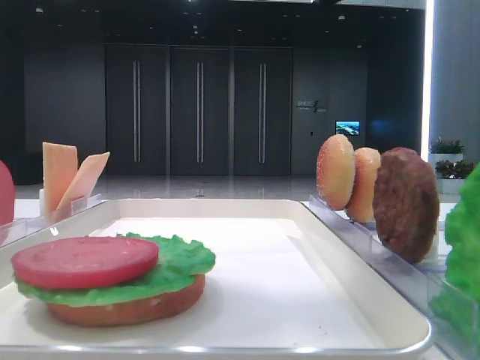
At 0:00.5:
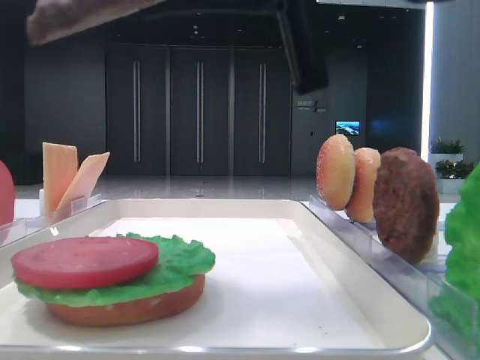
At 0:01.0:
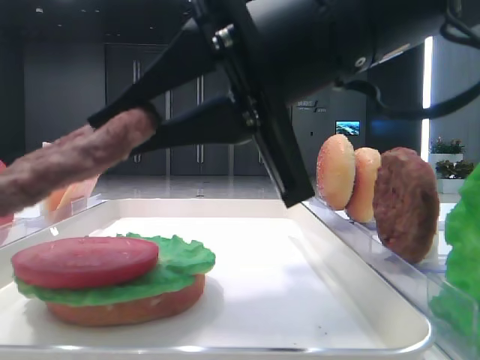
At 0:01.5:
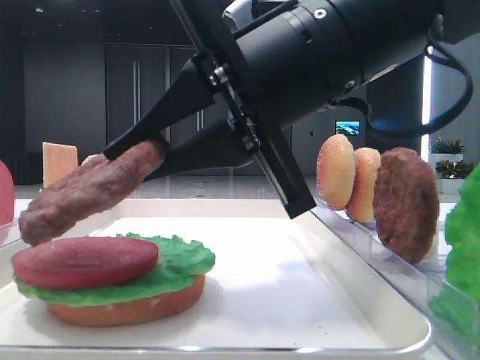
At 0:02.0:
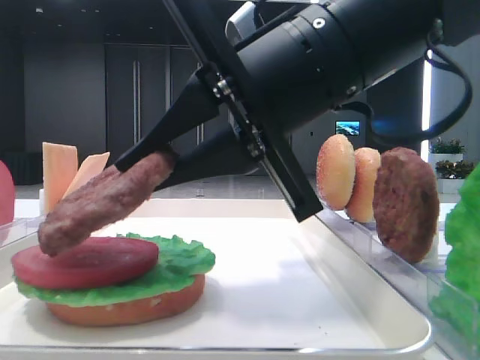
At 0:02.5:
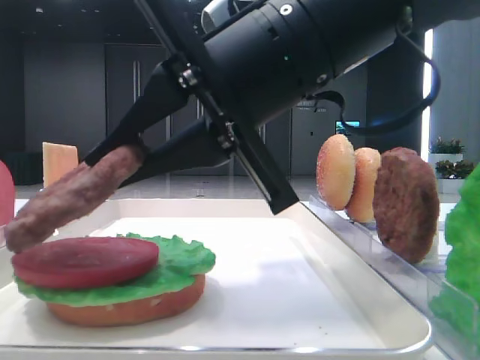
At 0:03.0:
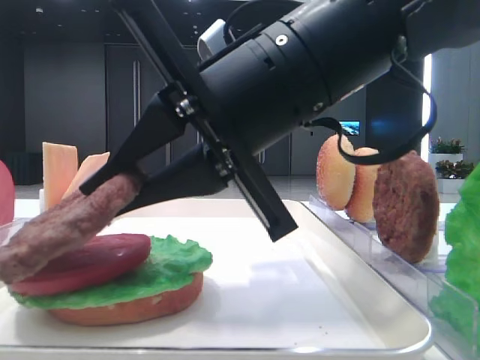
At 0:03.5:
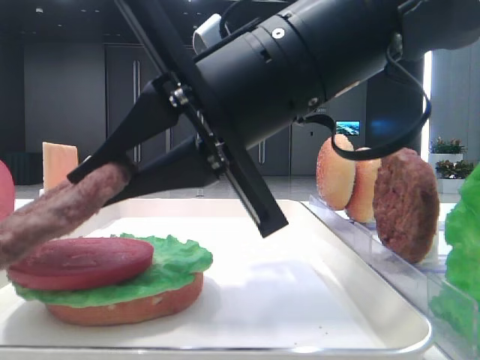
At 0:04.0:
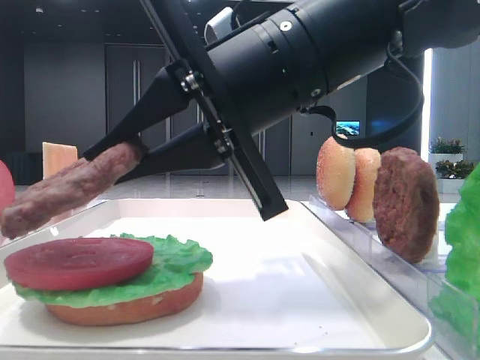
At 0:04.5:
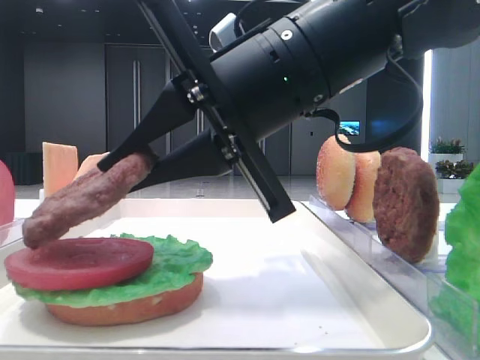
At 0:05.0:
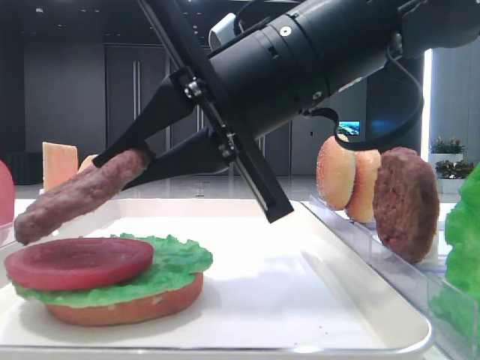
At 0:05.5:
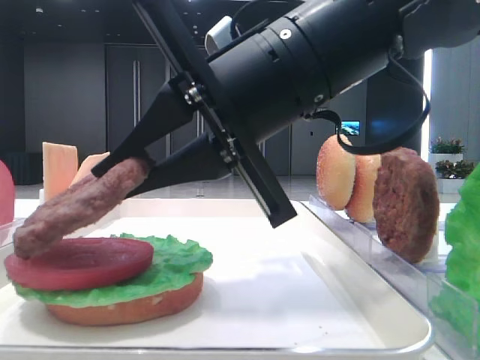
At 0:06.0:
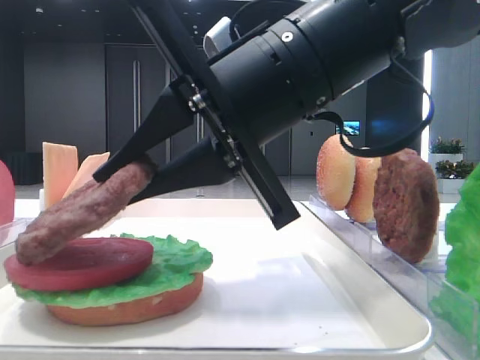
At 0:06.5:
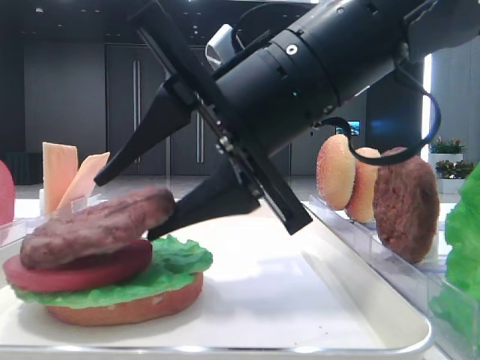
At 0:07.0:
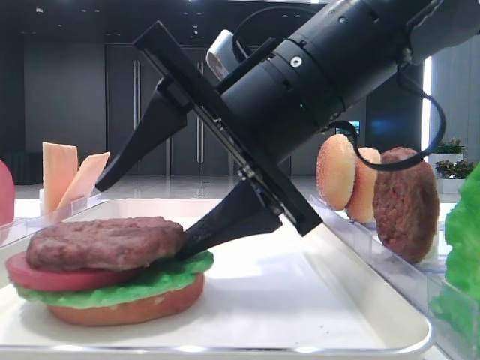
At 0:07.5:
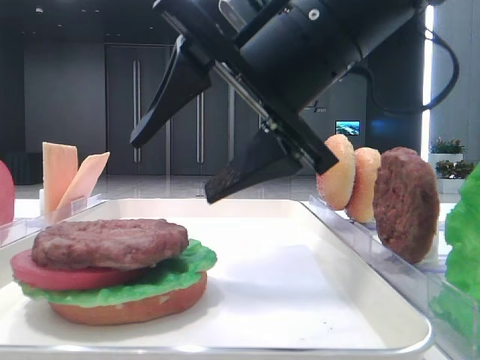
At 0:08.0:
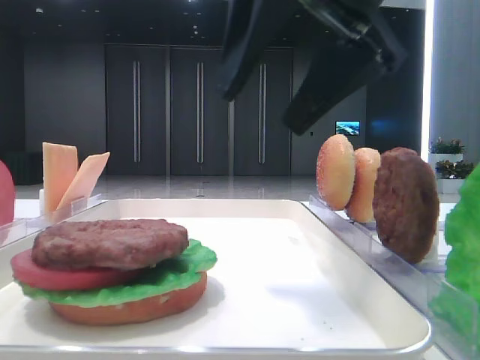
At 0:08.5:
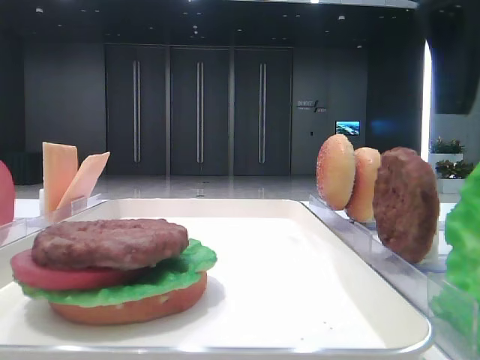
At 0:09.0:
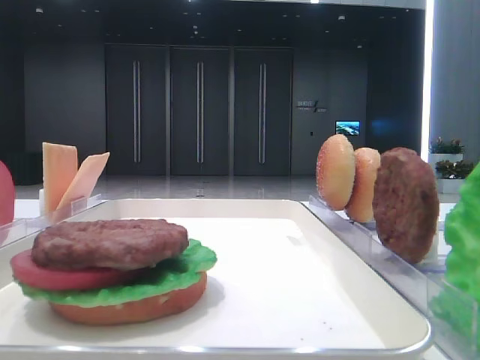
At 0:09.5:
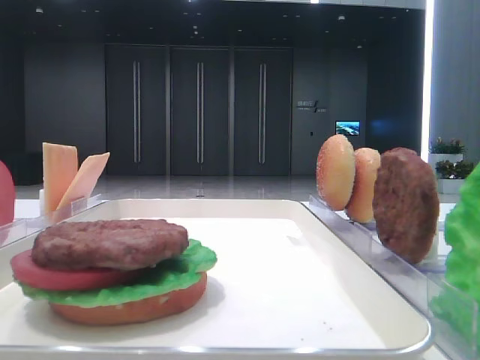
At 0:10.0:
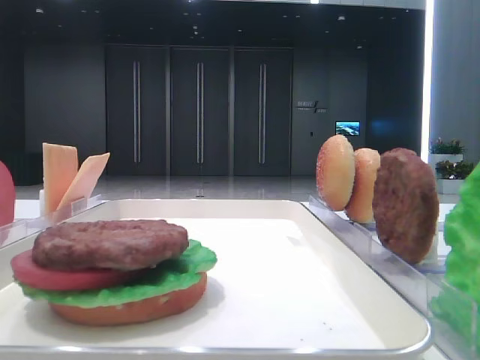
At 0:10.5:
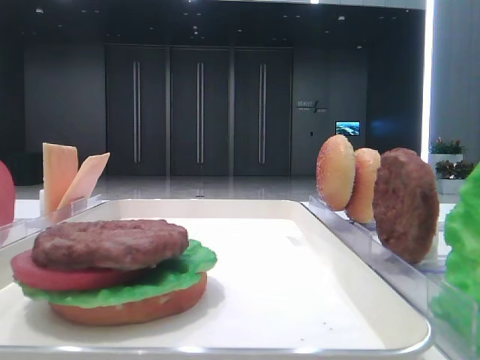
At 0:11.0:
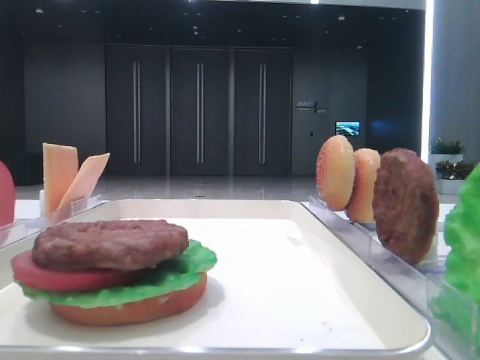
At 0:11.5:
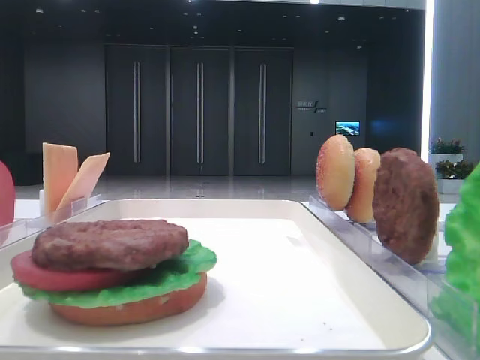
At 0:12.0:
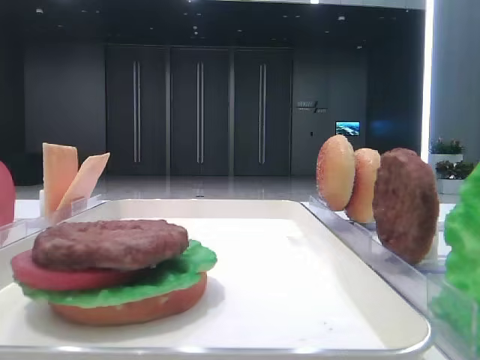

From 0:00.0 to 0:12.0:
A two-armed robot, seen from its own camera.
Step, from 0:00.0 to 0:07.0: Place the patty on the tomato slice with the right hand.
From 0:00.0 to 0:02.0: The right gripper moves downward, some 15 cm.
From 0:04.0 to 0:06.0: Both grippers stay put.
From 0:06.0 to 0:08.0: The right gripper shifts roughly 10 cm upward, and opens.
From 0:08.0 to 0:10.0: The right gripper heads to the right, backward and upward, covering about 35 cm.

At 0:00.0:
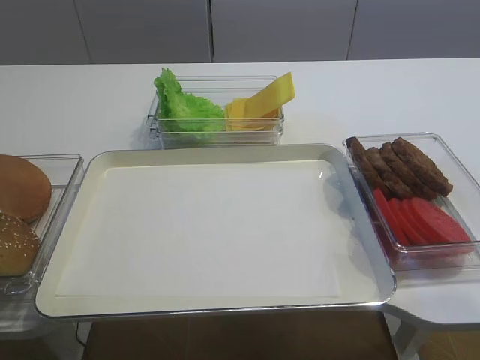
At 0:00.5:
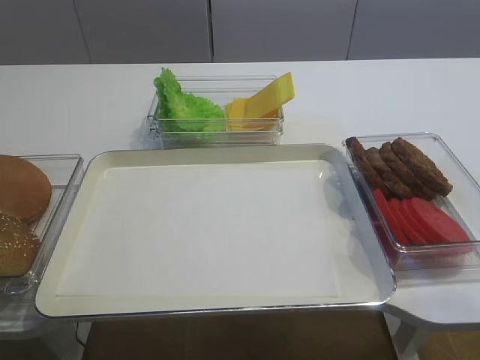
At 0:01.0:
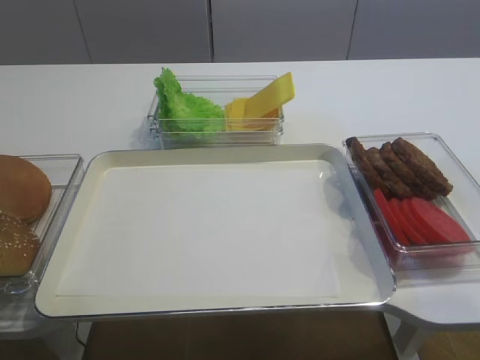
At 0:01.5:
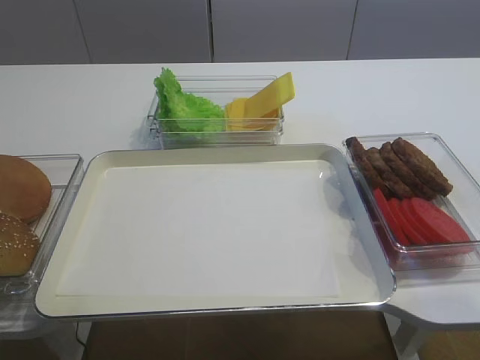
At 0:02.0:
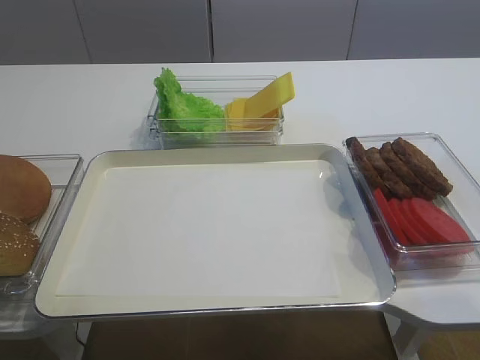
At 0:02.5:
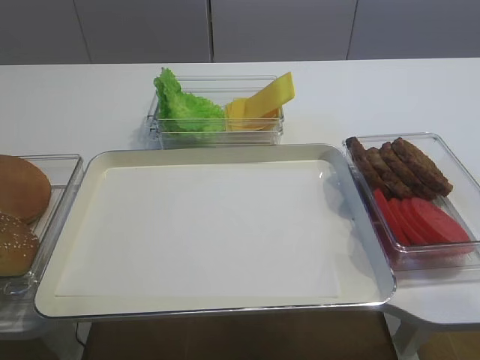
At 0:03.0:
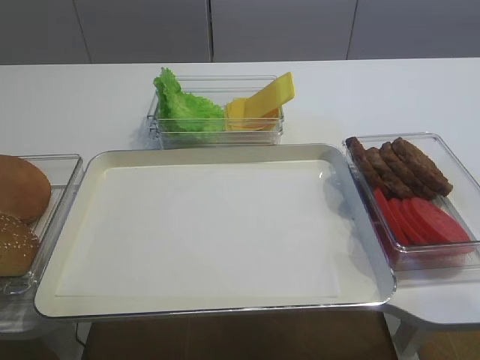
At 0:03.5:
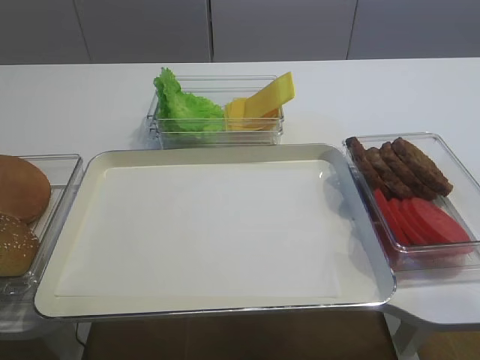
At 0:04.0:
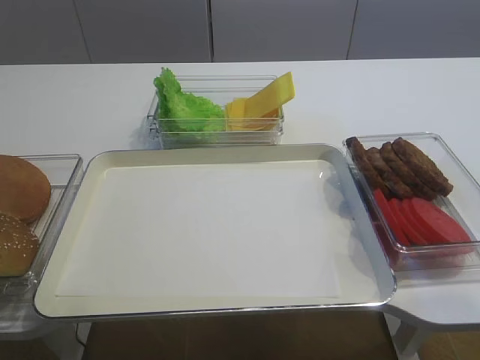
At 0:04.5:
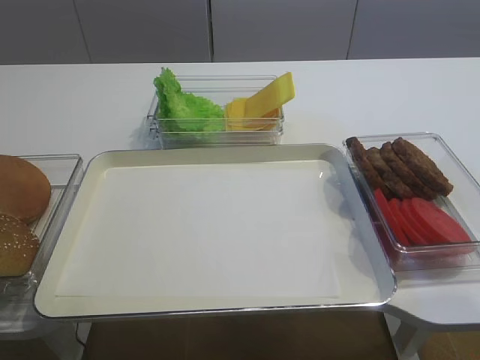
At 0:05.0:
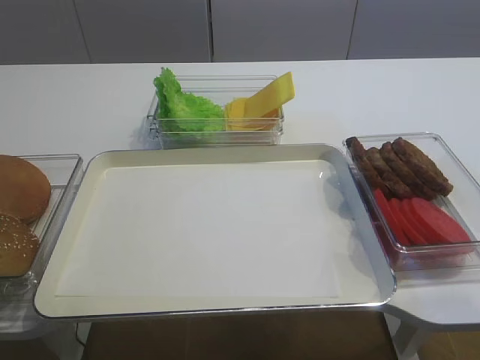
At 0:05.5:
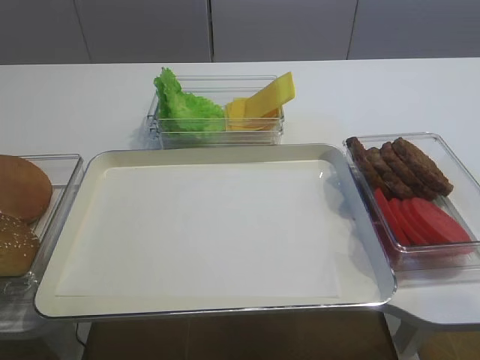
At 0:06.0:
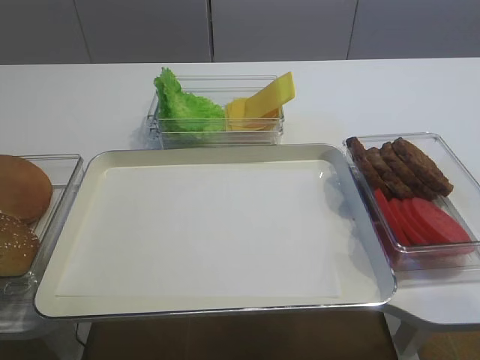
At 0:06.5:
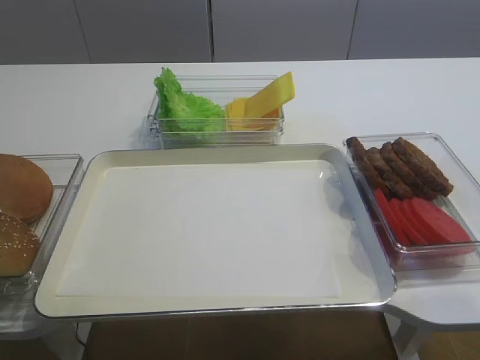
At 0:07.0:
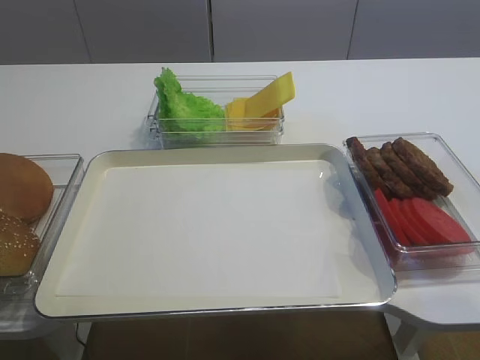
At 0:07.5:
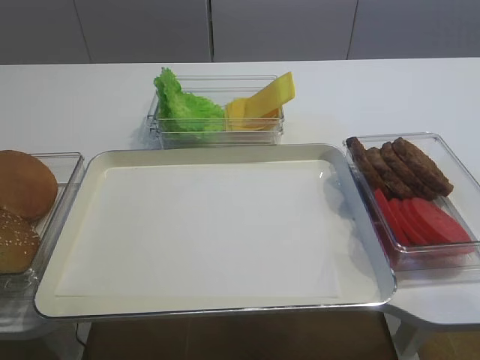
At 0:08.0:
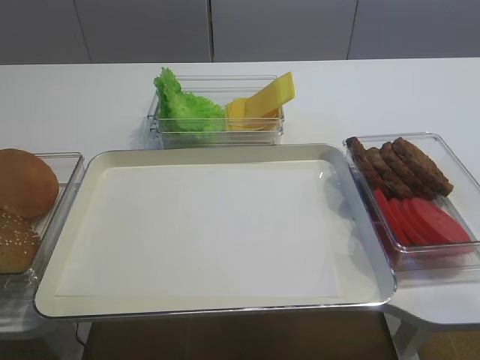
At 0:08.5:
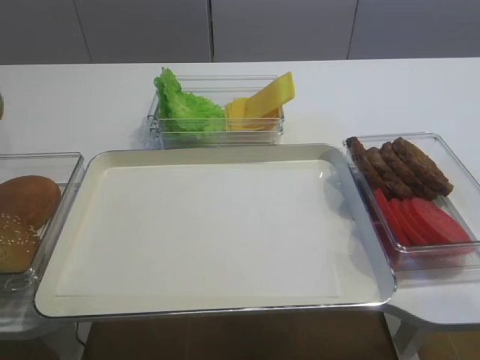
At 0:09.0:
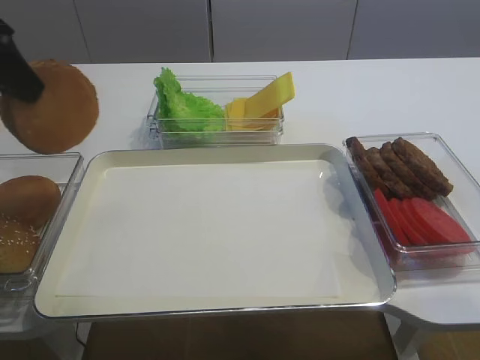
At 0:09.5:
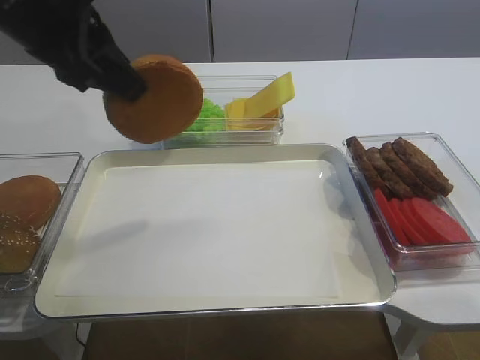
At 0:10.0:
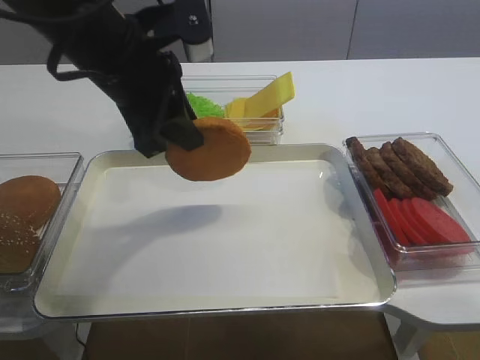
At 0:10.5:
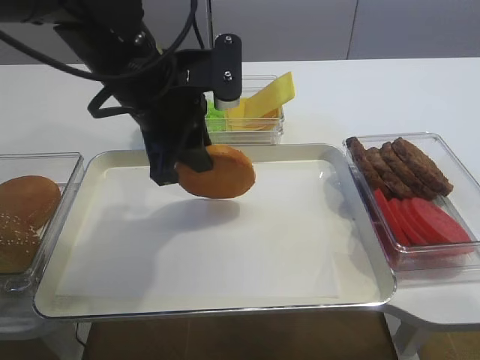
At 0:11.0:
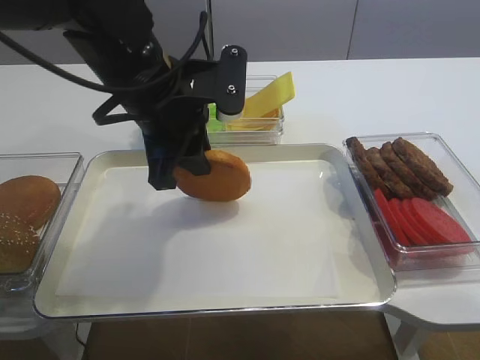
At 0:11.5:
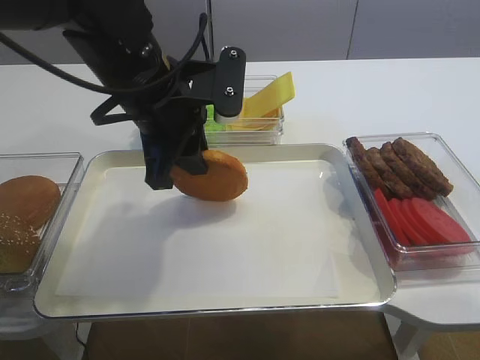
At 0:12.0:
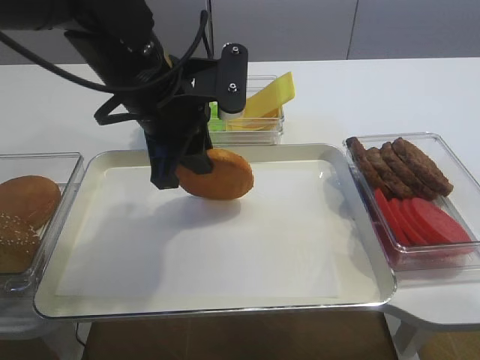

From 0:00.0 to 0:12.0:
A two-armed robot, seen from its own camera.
From 0:06.0 to 0:08.0: The left gripper closes its fingers.
From 0:08.0 to 0:10.0: The left gripper goes approximately 25 cm to the right.
From 0:10.0 to 0:12.0: The grippers make only small movements.

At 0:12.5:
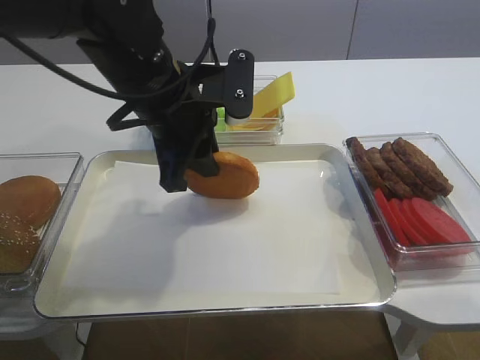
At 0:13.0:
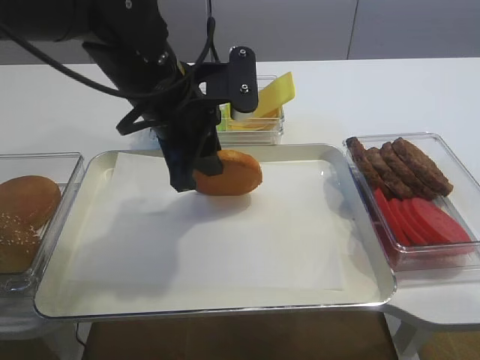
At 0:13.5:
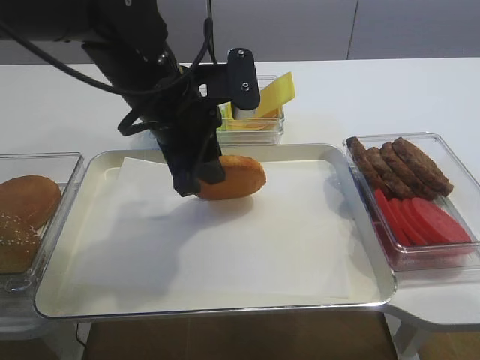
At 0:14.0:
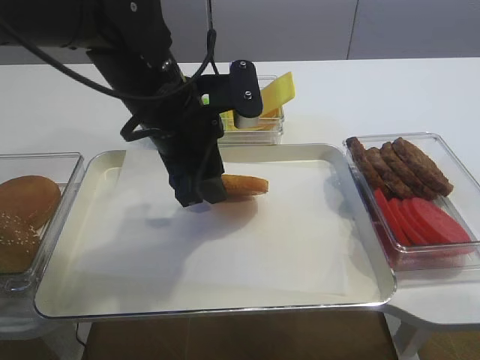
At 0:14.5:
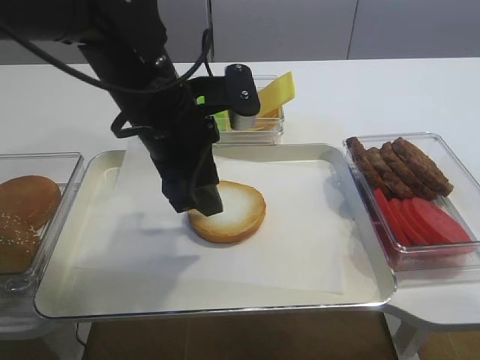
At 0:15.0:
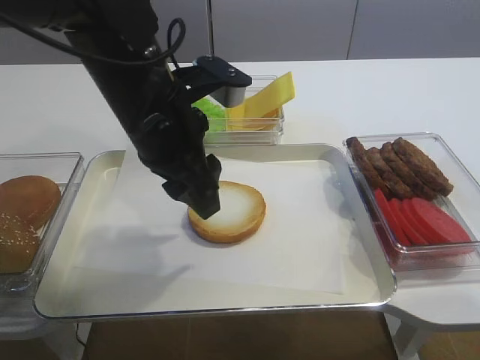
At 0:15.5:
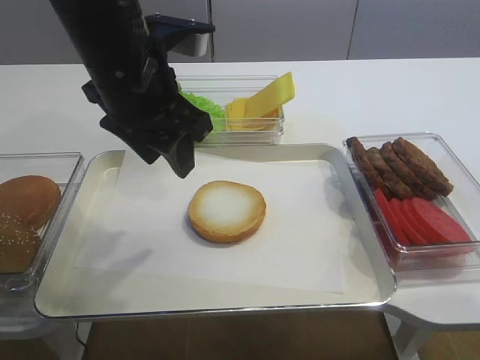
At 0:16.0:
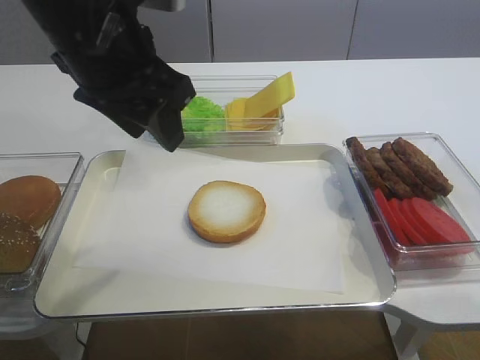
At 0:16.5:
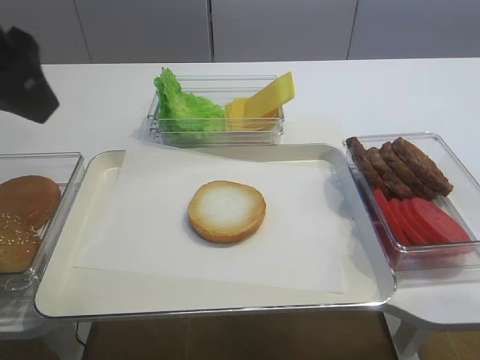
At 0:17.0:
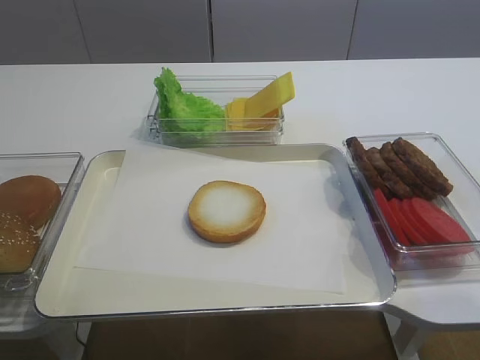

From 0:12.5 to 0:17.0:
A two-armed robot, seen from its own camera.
Step, from 0:12.5 to 0:15.5: Place the bread slice on the tray with the left gripper.
From 0:12.5 to 0:14.5: The left gripper opens its fingers.
From 0:14.5 to 0:17.0: The left gripper heads to the left, backward and upward, covering some 30 cm.
